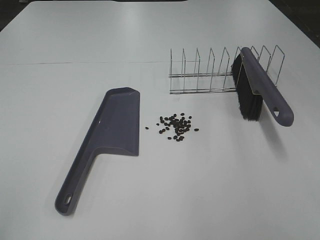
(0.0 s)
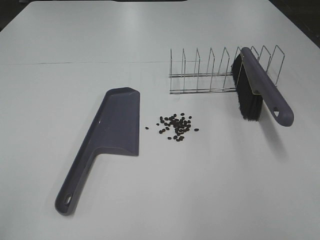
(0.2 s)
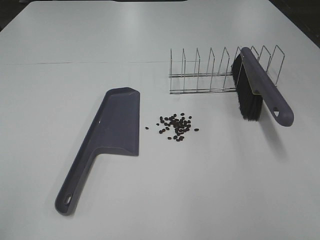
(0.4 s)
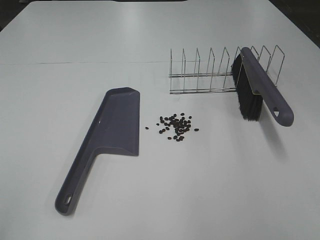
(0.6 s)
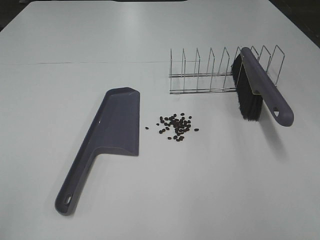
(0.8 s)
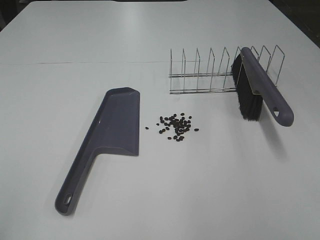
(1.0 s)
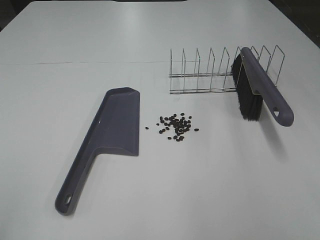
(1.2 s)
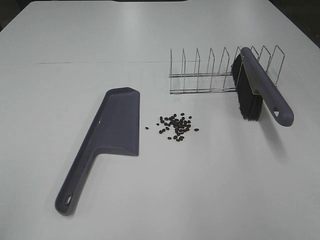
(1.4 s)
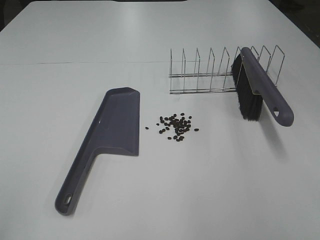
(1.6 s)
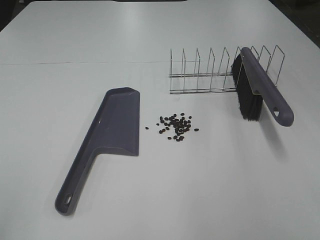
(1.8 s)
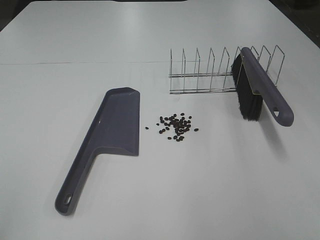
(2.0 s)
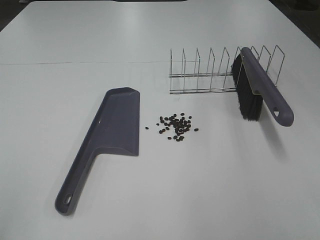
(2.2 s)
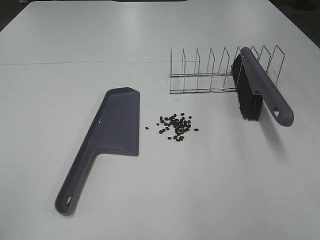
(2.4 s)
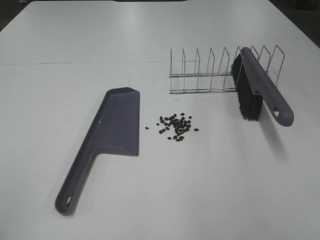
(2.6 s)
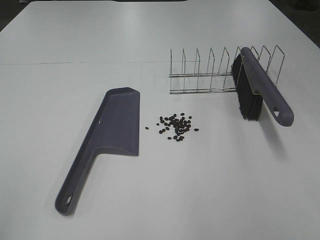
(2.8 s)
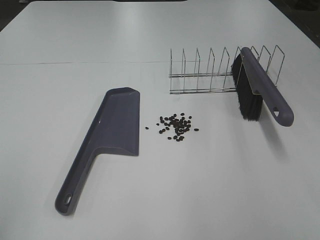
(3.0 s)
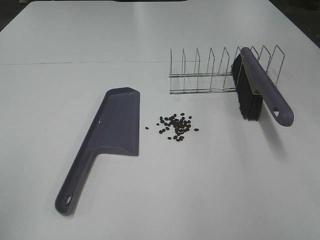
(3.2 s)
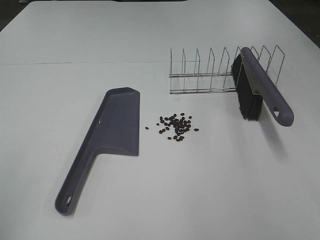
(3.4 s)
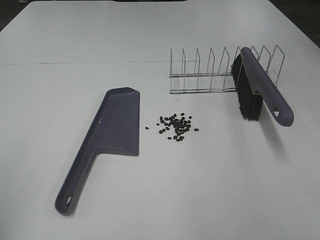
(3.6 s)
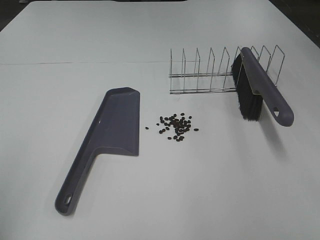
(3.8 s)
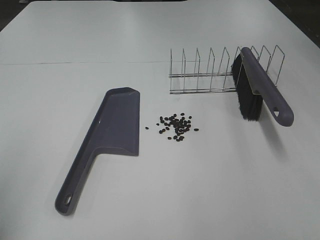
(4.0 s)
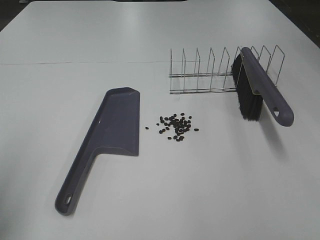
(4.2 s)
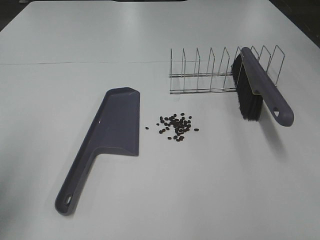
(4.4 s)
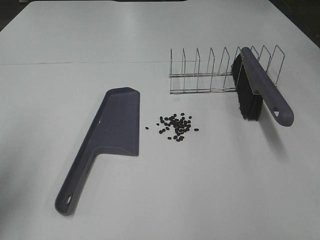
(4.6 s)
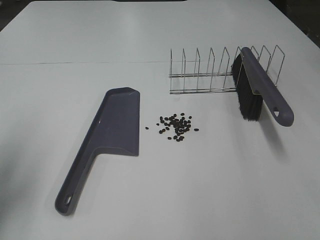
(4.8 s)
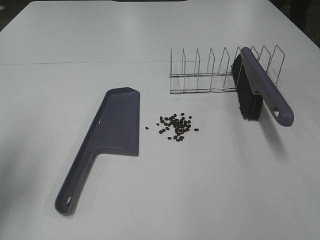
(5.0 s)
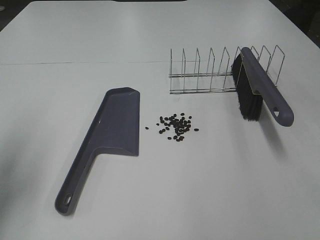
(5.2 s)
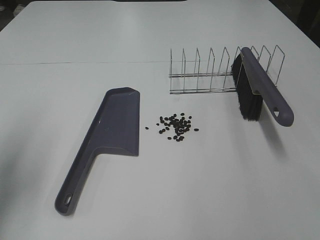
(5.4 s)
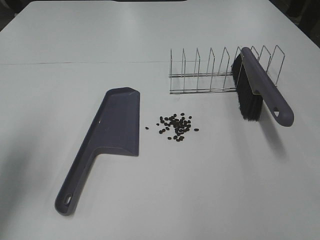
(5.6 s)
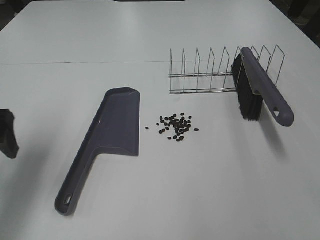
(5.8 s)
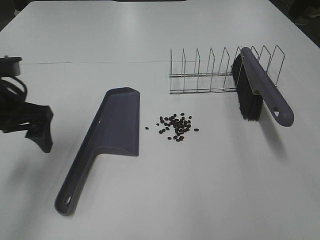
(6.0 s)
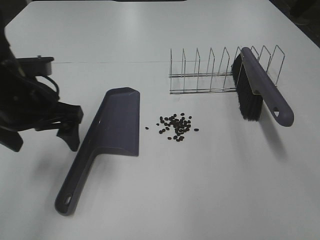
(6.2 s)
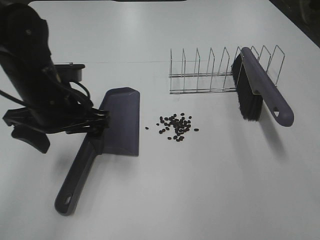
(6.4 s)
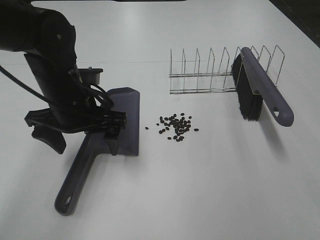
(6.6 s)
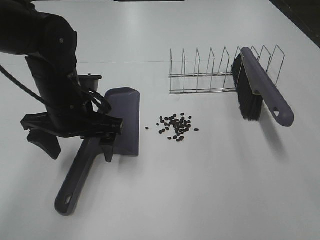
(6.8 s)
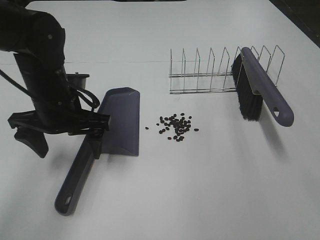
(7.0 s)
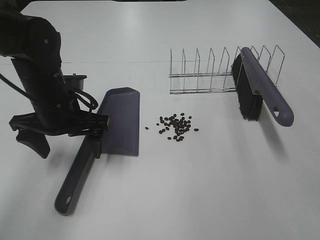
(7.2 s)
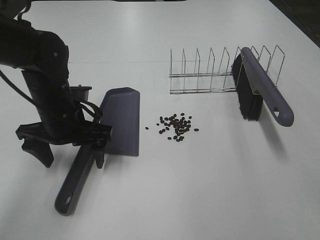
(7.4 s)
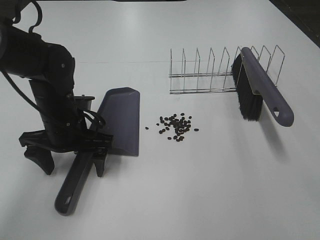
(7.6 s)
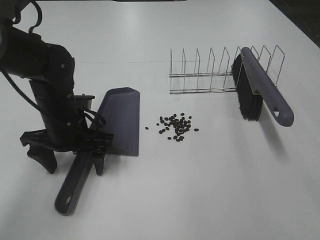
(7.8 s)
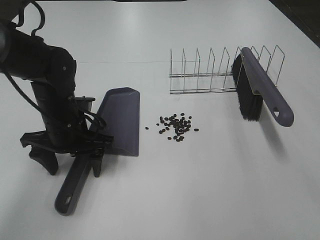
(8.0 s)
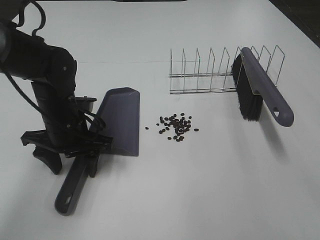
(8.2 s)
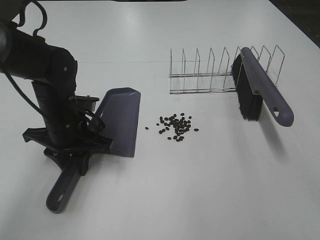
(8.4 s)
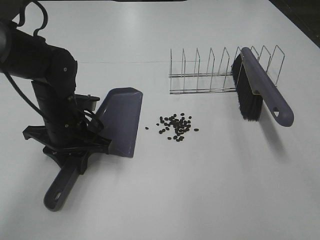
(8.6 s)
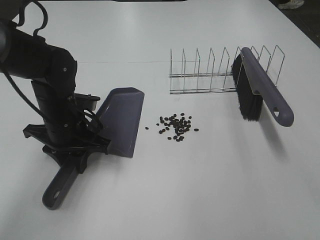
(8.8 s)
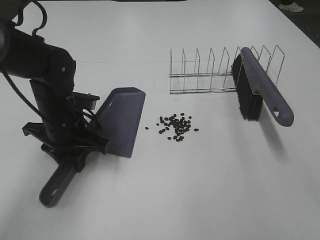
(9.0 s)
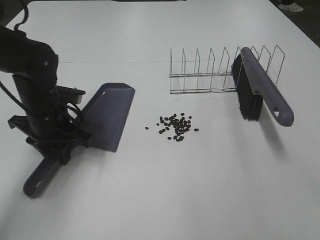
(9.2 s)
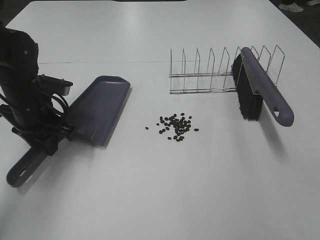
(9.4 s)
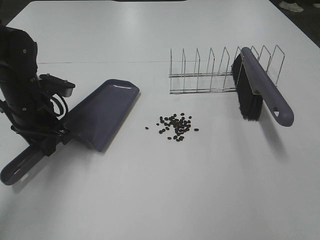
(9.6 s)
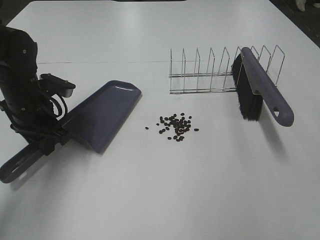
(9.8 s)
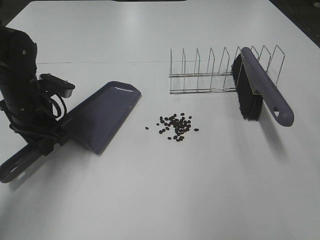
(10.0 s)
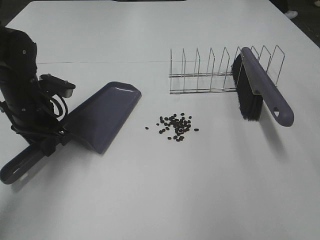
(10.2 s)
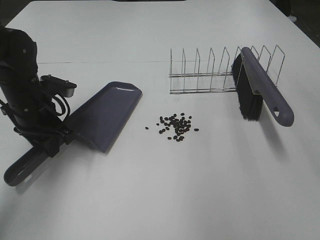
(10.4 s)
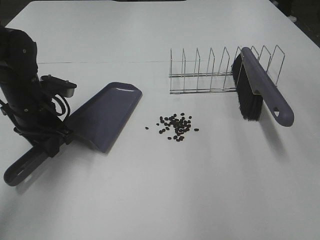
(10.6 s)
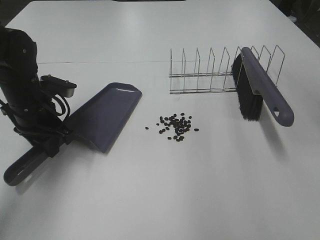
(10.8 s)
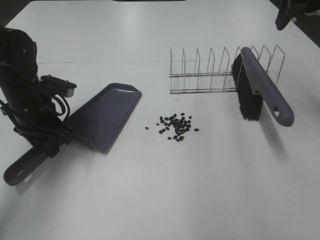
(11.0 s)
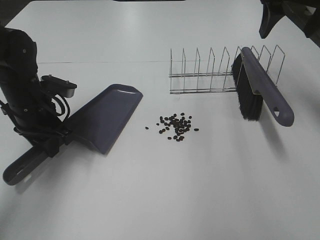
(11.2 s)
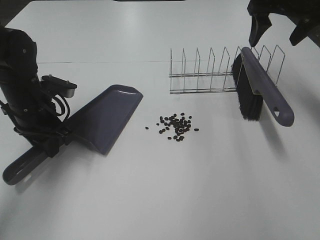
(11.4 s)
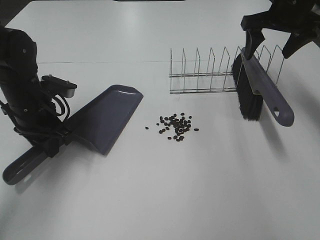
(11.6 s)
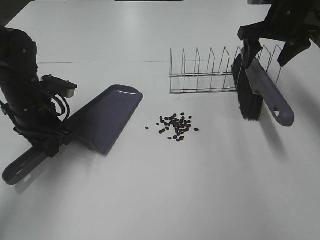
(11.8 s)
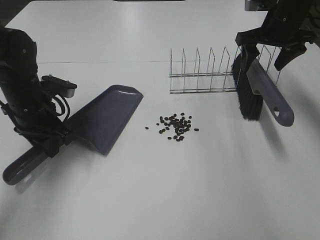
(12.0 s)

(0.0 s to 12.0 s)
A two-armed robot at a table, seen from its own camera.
Task of the whole recording: Sweep Coffee Bean.
Step, 0.0 s - 8.8 s: Left hand: grab the dustpan.
0.0 s - 1.6 s: The two grippers keep their place.
3.0 s - 4.4 s: The left gripper travels forward by some 15 cm.
4.4 s - 6.0 s: The left gripper shifts approximately 15 cm to the right, forward and downward.
6.0 s - 7.6 s: The left gripper goes approximately 10 cm downward and to the right.
7.6 s - 9.0 s: The left gripper closes.
9.0 s - 10.4 s: The left gripper is displaced to the left by approximately 5 cm, while the right gripper is displaced forward and upward by approximately 25 cm.
10.4 s - 12.0 s: The right gripper moves forward and downward, roughly 30 cm.

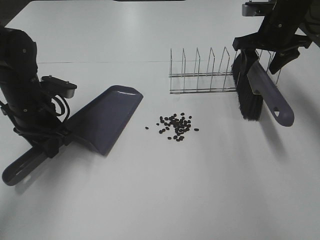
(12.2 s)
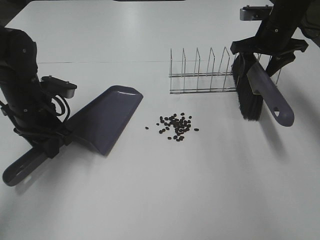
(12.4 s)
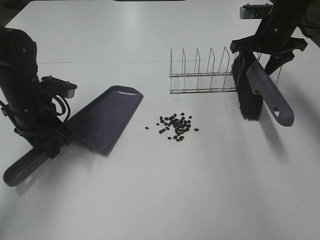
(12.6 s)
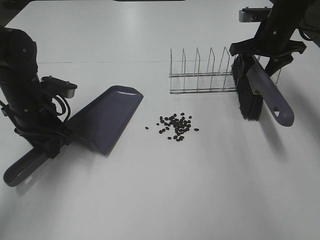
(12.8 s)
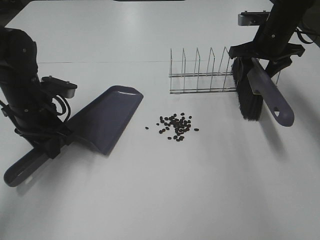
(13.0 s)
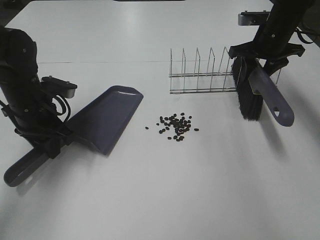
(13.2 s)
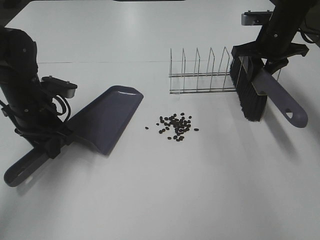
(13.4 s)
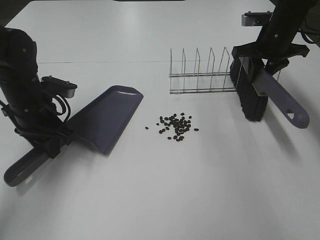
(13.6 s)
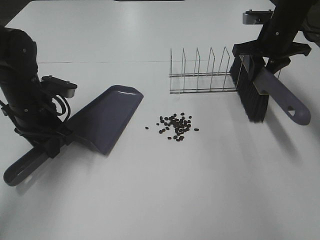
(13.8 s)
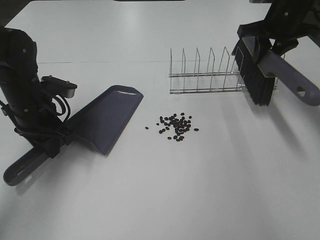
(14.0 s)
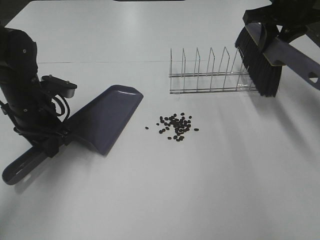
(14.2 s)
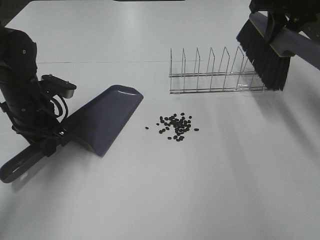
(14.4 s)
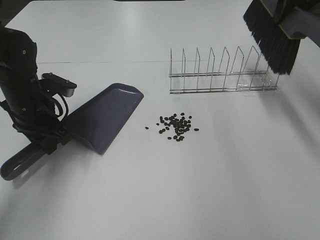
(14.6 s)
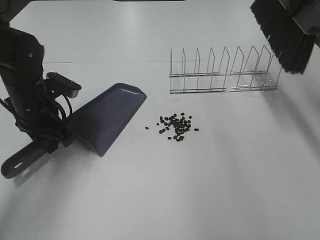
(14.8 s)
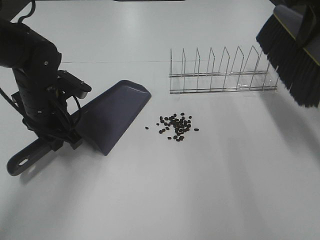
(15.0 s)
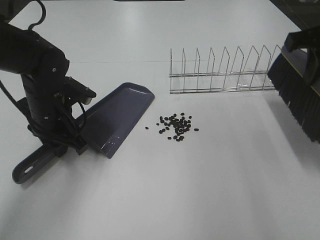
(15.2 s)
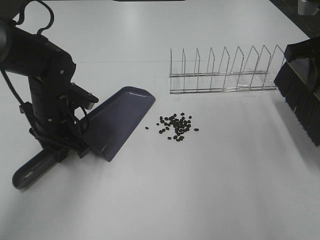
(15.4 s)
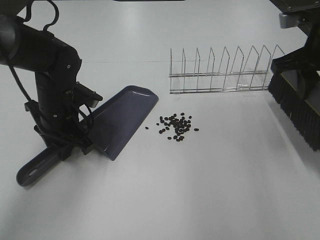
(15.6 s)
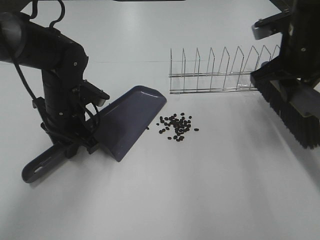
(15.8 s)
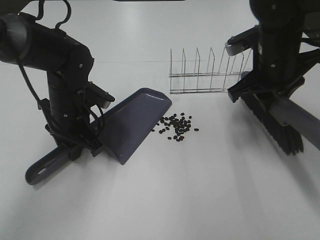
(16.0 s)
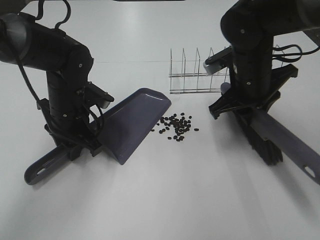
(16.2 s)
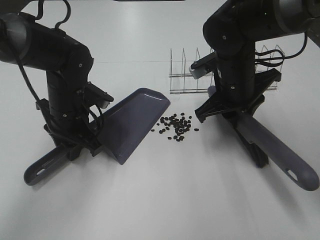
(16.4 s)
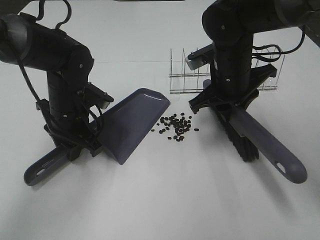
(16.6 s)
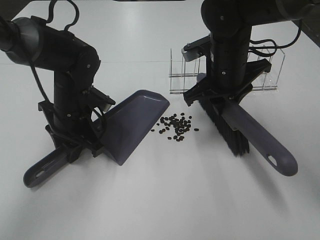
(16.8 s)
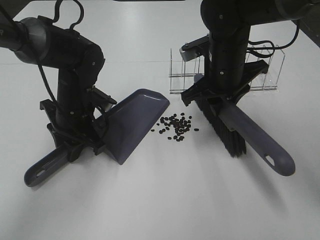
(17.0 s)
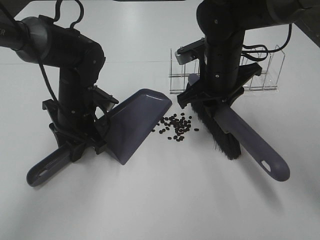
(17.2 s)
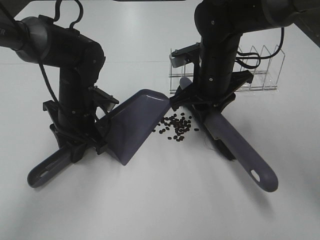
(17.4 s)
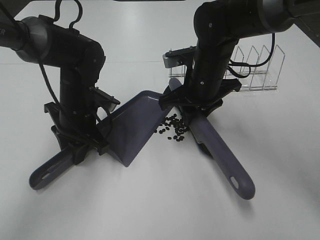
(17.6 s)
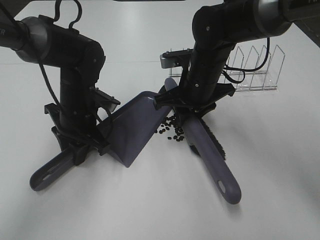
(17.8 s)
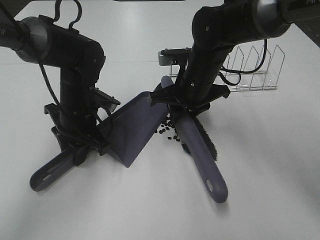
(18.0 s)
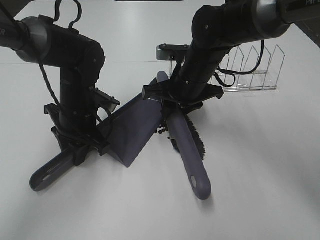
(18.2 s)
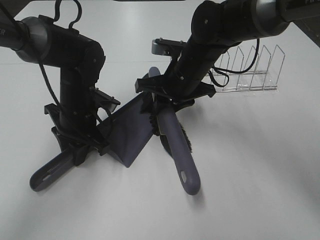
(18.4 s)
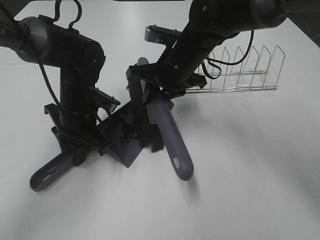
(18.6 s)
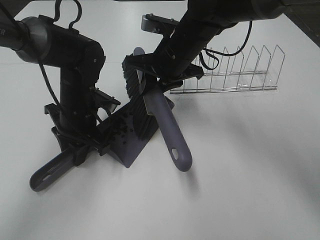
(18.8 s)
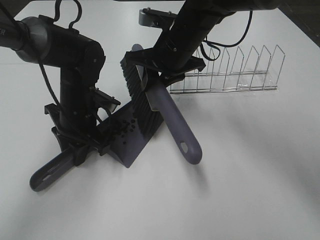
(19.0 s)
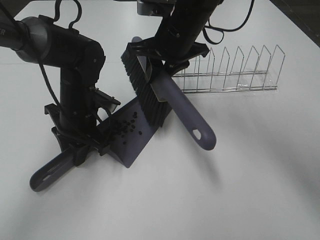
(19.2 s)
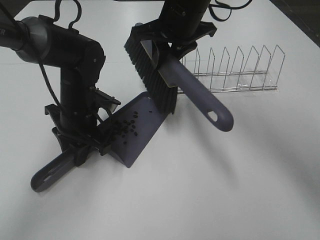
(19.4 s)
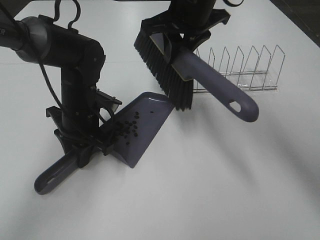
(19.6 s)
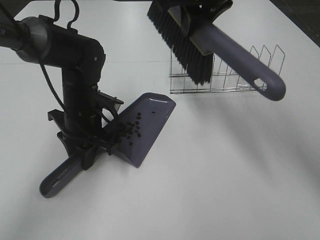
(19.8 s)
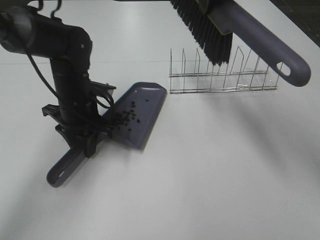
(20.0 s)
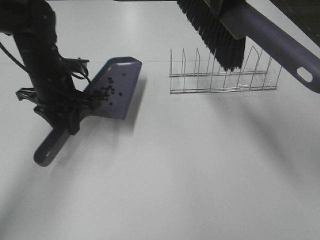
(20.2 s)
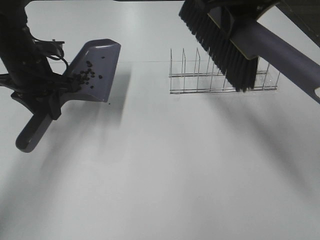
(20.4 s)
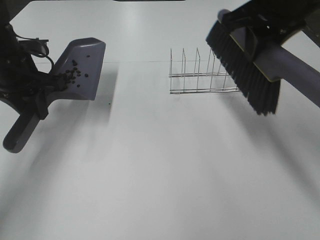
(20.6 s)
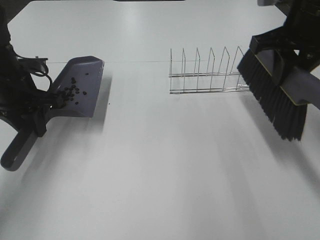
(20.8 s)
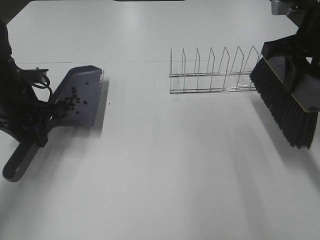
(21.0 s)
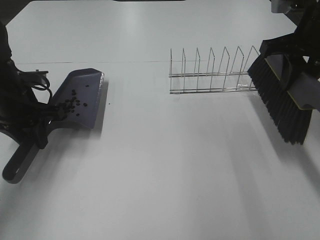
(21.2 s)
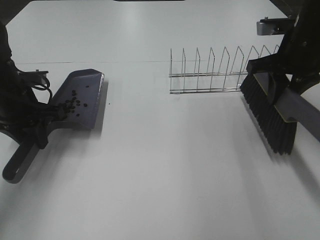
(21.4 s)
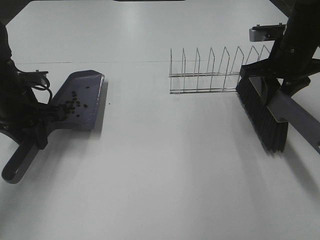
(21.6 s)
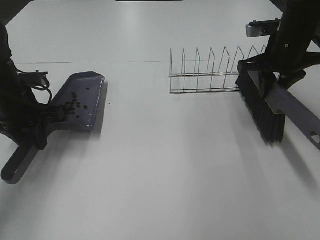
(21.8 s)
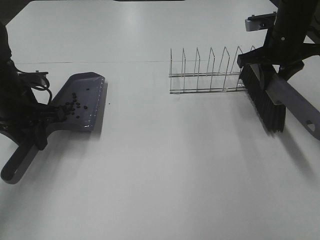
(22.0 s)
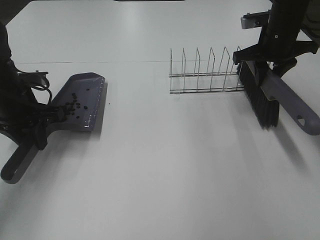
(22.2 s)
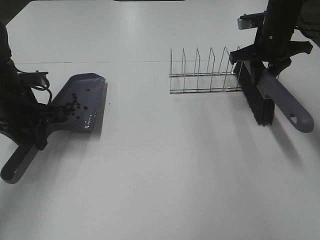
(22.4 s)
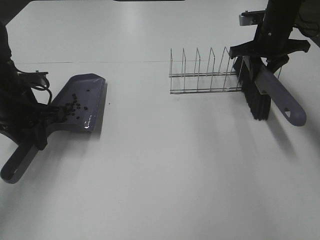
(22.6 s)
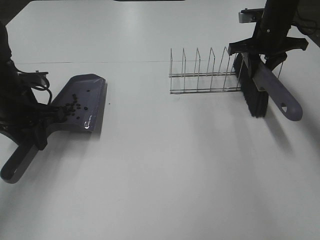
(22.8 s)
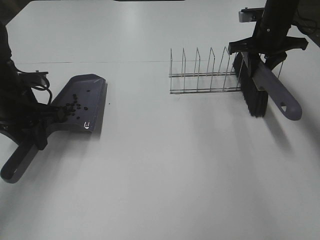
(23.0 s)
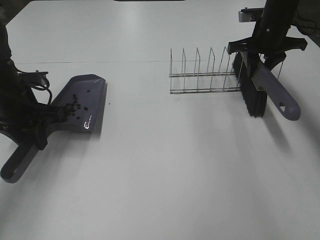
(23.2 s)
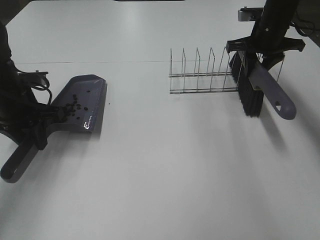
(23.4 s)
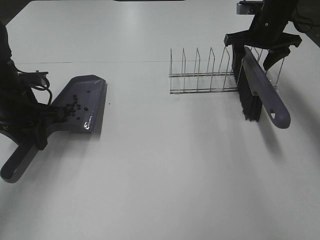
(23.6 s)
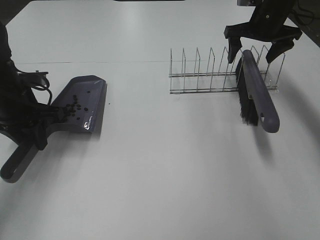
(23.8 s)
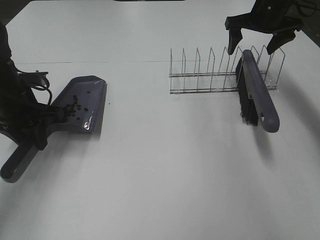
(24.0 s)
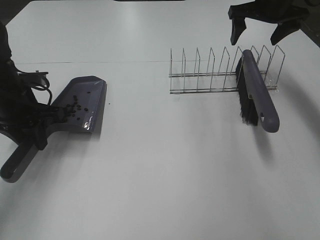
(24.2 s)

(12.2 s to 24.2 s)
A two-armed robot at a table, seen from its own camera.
Task of the whole recording: Sweep Coffee Bean.
Step, 12.2 s - 15.8 s: Left hand: move the dustpan to the left side of the coffee beans.
Step, 13.8 s - 19.0 s: Right hand:sweep the coffee beans into the dustpan.
Step, 19.2 s - 23.6 s: Right hand:place the broom on the rack.
12.2 s - 13.8 s: The right gripper closes its fingers.
13.8 s - 15.2 s: The right gripper goes about 15 cm backward and upward.
15.2 s - 16.6 s: The right gripper is displaced to the left and downward by approximately 20 cm.
16.6 s - 18.2 s: The right gripper shifts approximately 5 cm to the left.
18.2 s - 19.8 s: The right gripper is displaced upward by some 20 cm.
19.8 s - 21.2 s: The right gripper is displaced to the right and downward by roughly 15 cm; the left gripper shifts about 10 cm to the left.
21.2 s - 22.6 s: The right gripper heads forward and downward, covering approximately 15 cm.
22.6 s - 24.2 s: The right gripper is displaced upward by approximately 5 cm, and opens.
